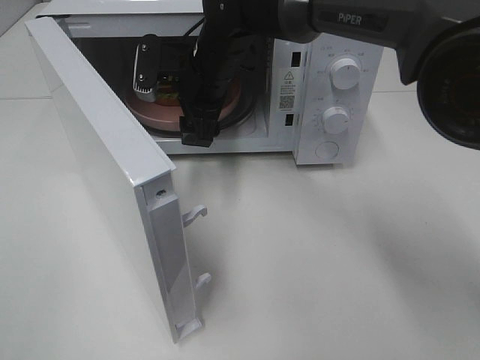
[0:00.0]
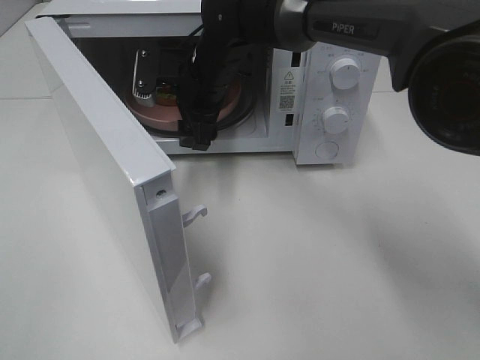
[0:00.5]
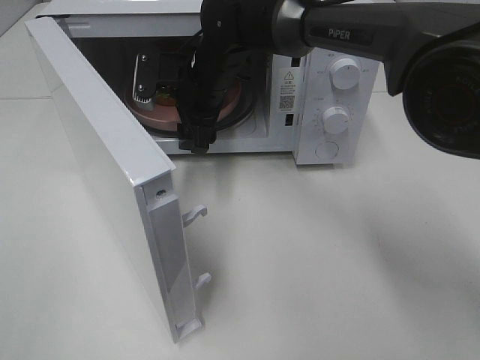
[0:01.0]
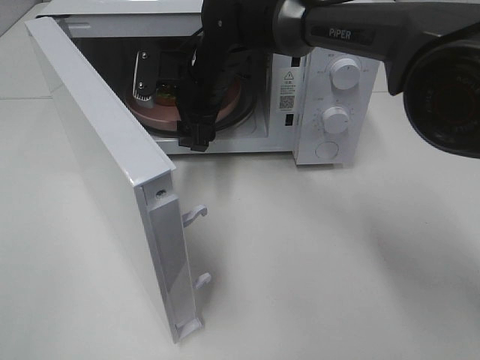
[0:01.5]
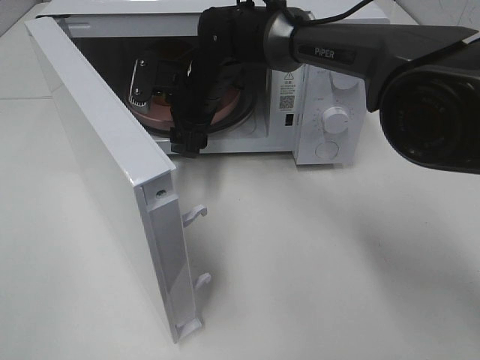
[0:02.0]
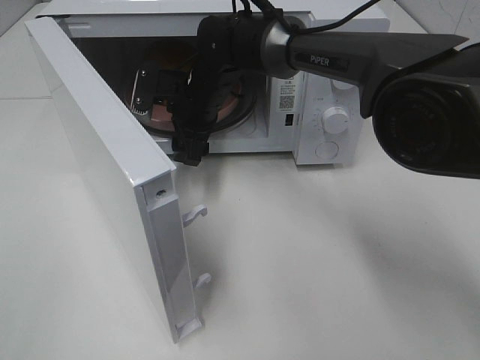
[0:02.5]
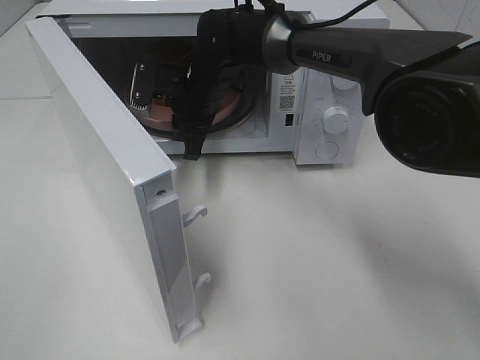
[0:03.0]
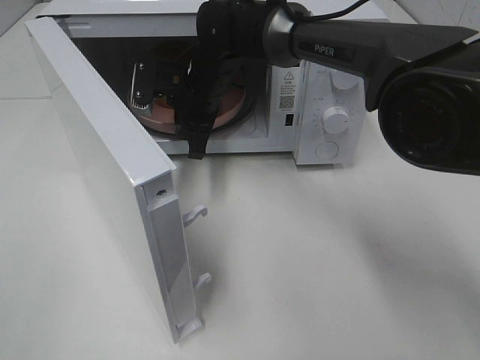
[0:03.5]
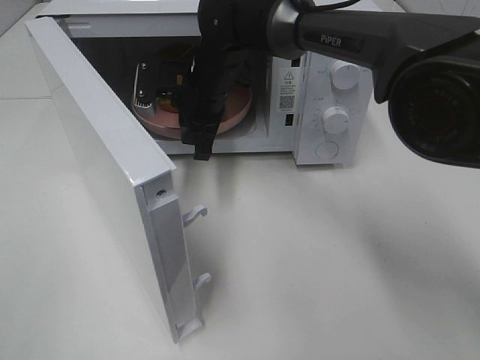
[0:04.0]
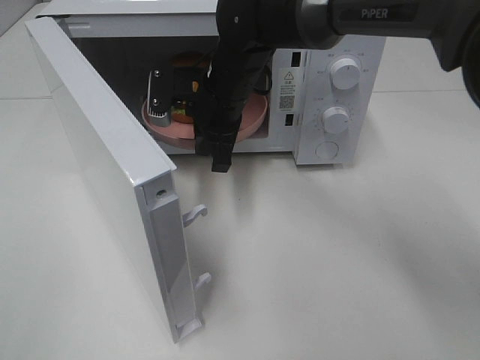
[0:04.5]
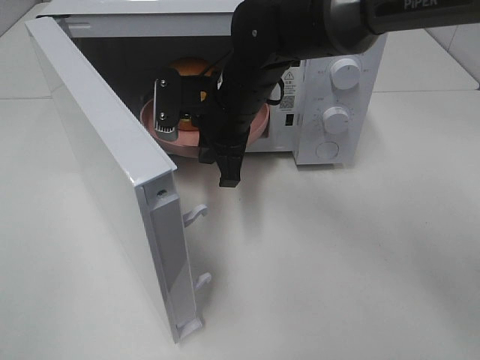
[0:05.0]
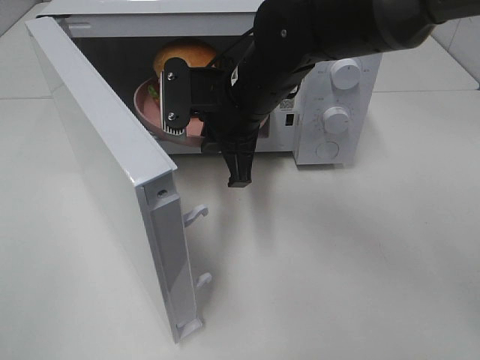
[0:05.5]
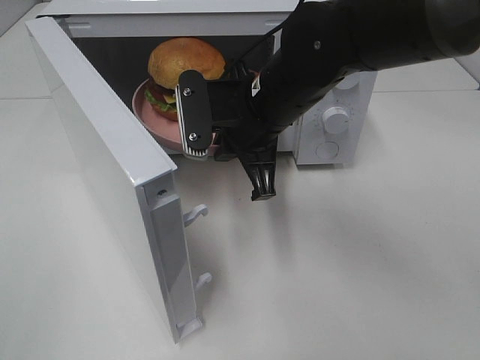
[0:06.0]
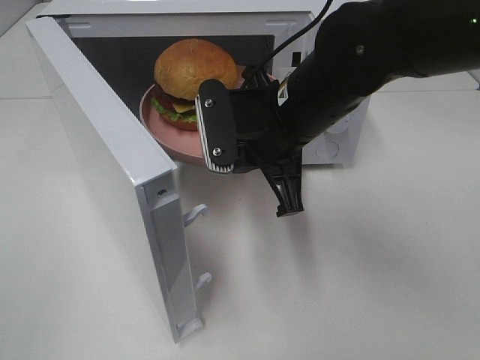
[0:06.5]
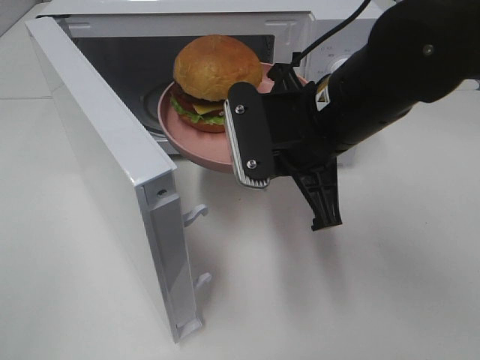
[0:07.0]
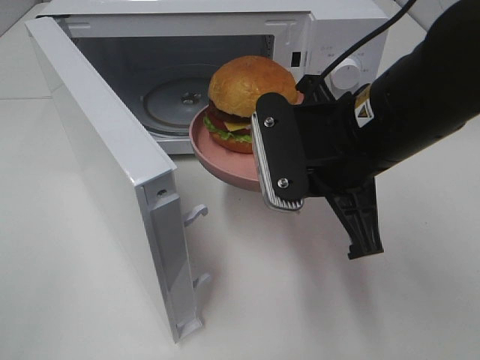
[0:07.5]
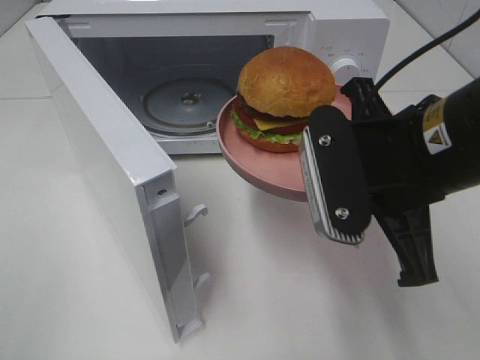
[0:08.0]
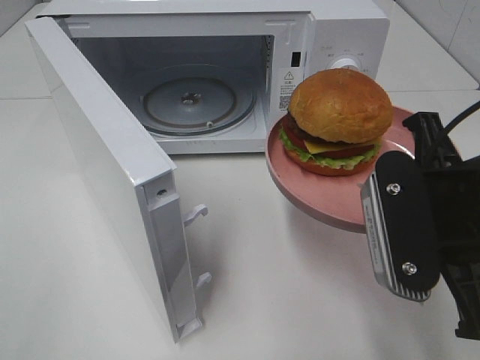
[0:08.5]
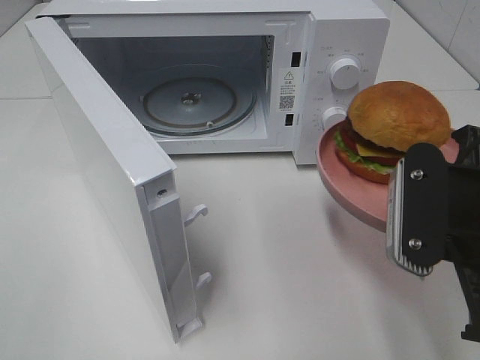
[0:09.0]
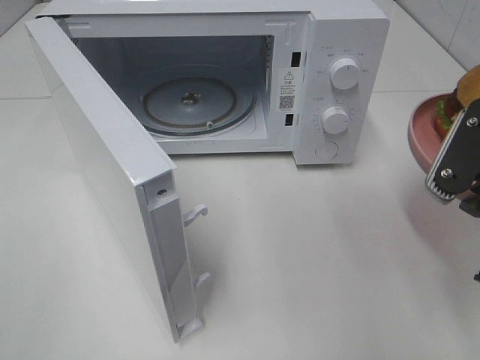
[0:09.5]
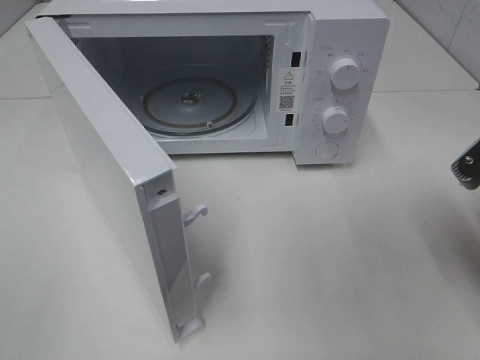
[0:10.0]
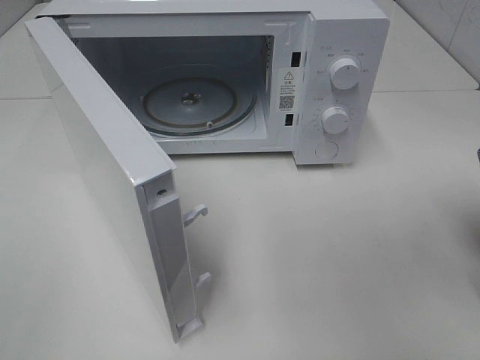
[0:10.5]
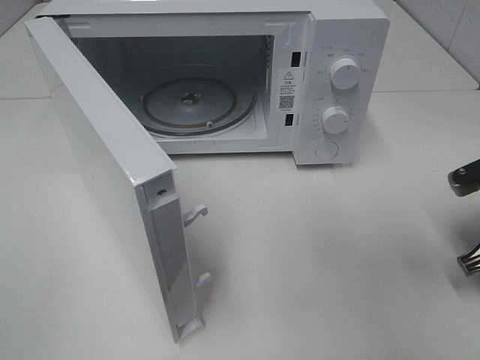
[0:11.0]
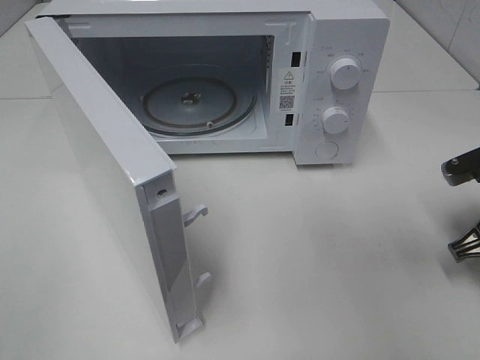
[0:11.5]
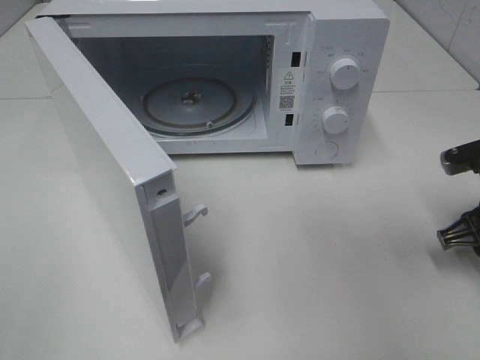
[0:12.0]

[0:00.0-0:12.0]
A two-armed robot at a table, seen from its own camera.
Task of the whole recording: Heat the burger.
Step, 0:00.0 to 0:03.0: Right hand: grab the plate with the hamburger.
Step, 0:03.5 to 0:11.5: Right hand: place the plate on the table.
0:00.0 to 0:02.0: There are only small adjustments of the grippers.
0:02.0 to 0:04.0: The right gripper closes its fingers.
0:04.0 to 0:06.0: The right gripper goes roughly 15 cm backward and to the right.
0:06.0 to 0:08.0: The right gripper travels backward and to the right by some 15 cm.
0:08.0 to 0:10.0: The right gripper travels to the right by some 15 cm.
0:10.0 to 0:12.0: The right gripper goes roughly 10 cm downward and forward, and opens up.

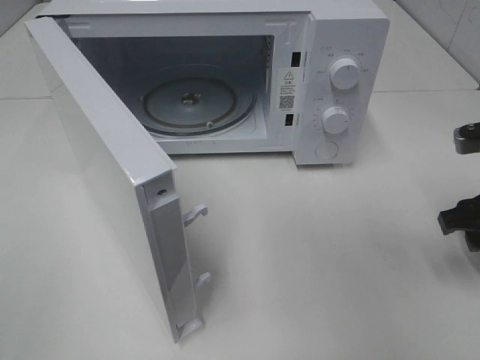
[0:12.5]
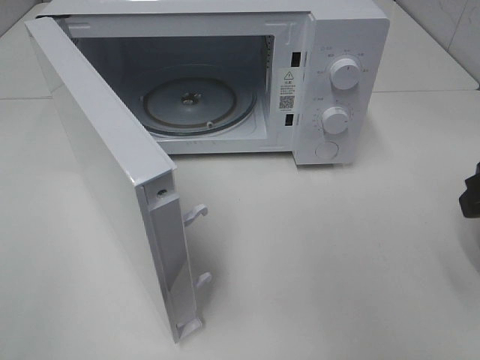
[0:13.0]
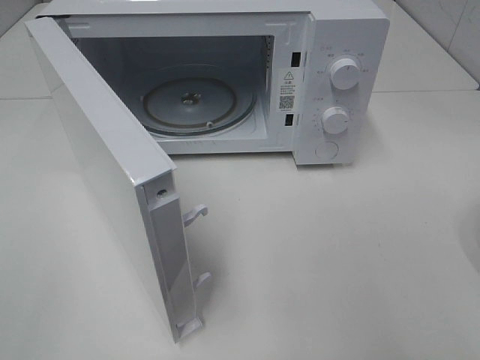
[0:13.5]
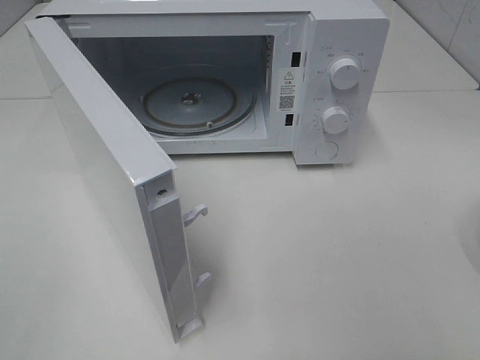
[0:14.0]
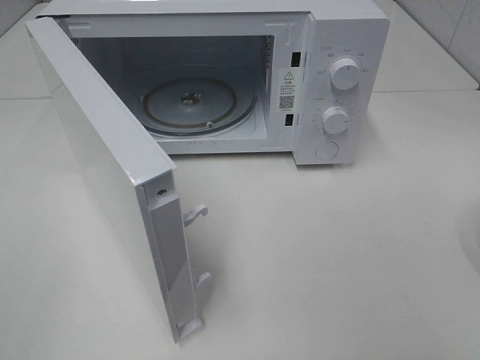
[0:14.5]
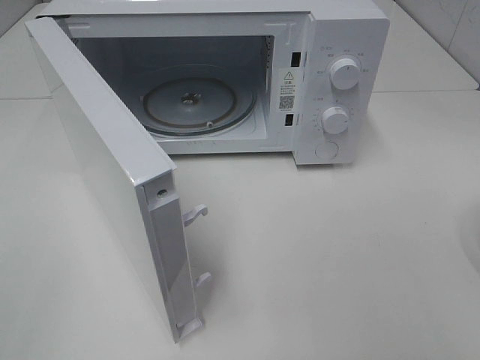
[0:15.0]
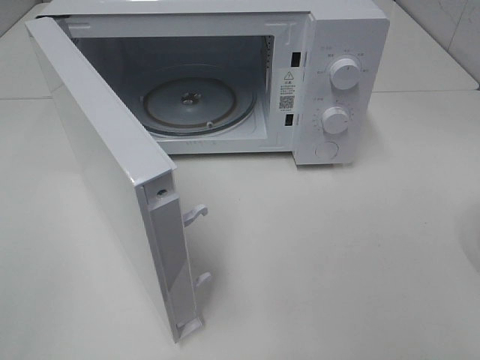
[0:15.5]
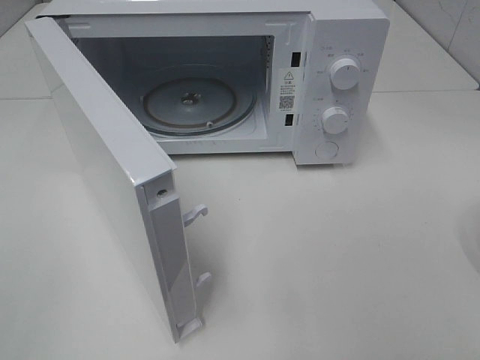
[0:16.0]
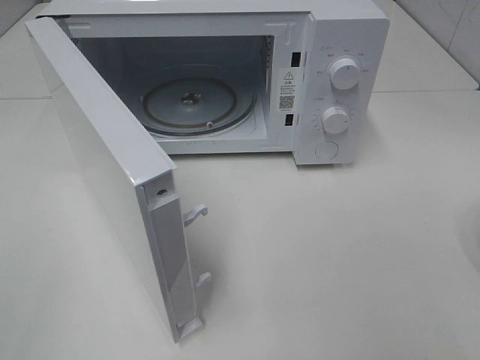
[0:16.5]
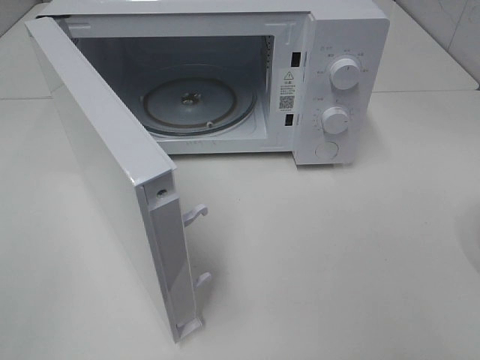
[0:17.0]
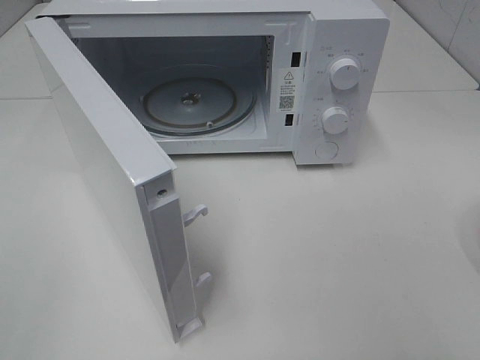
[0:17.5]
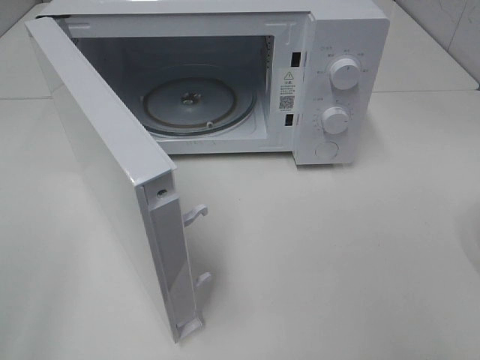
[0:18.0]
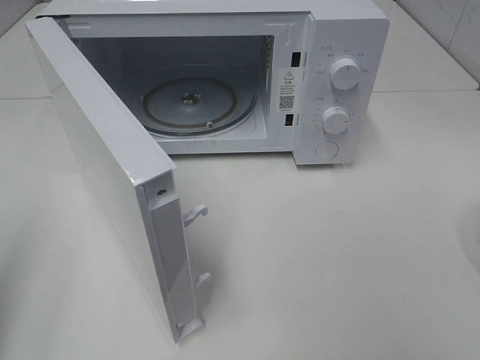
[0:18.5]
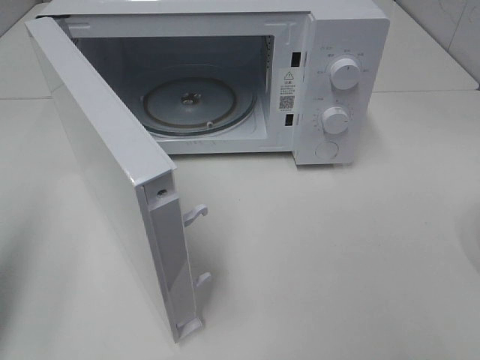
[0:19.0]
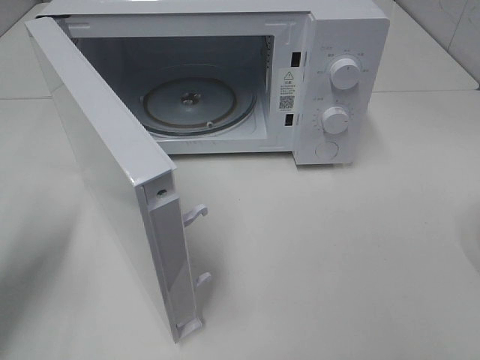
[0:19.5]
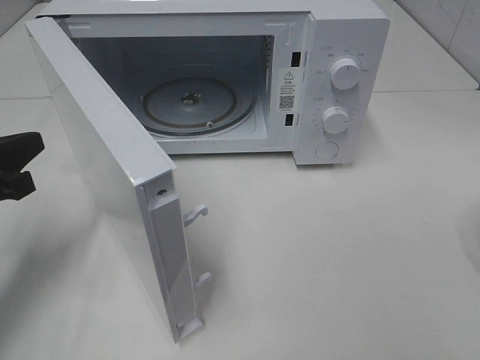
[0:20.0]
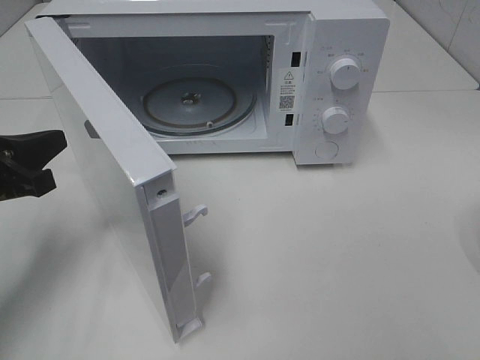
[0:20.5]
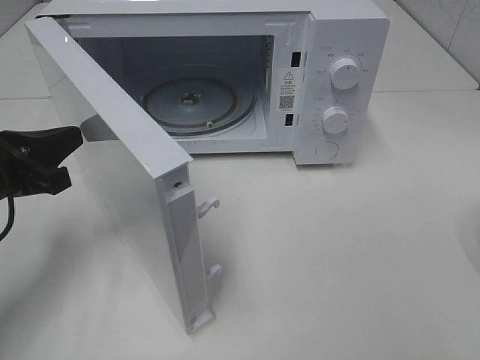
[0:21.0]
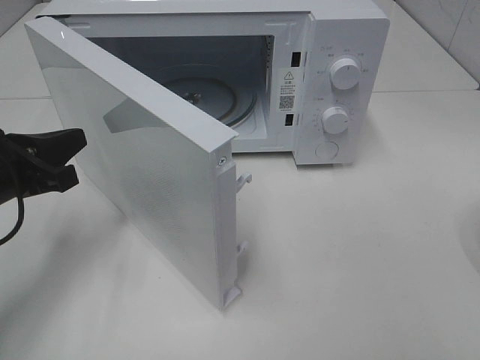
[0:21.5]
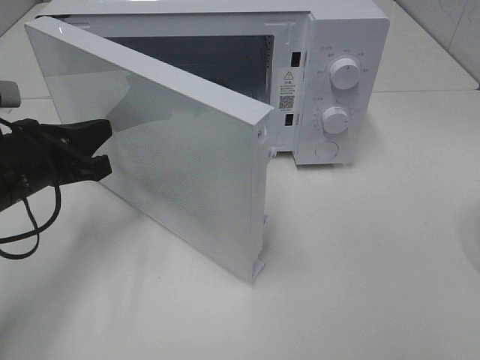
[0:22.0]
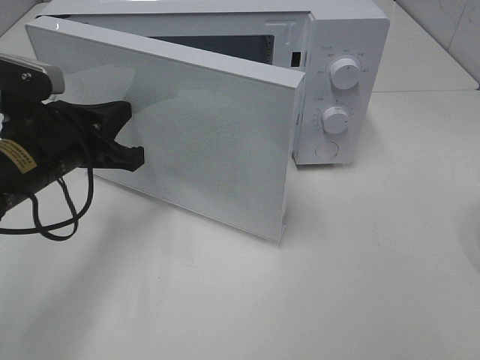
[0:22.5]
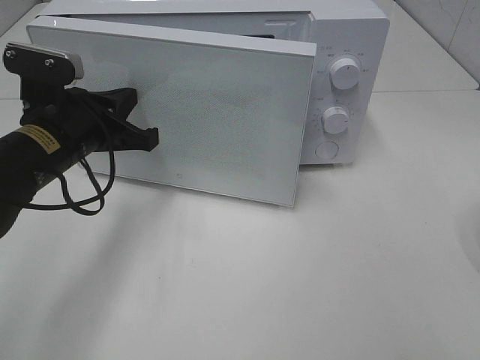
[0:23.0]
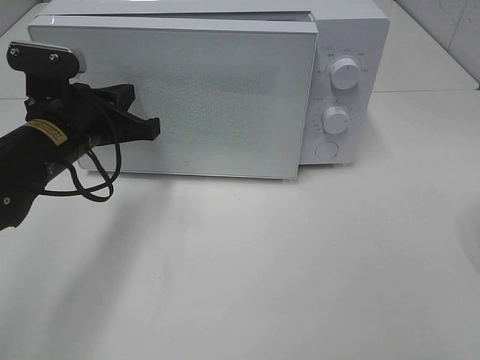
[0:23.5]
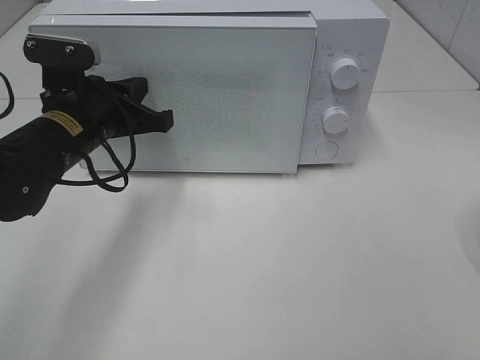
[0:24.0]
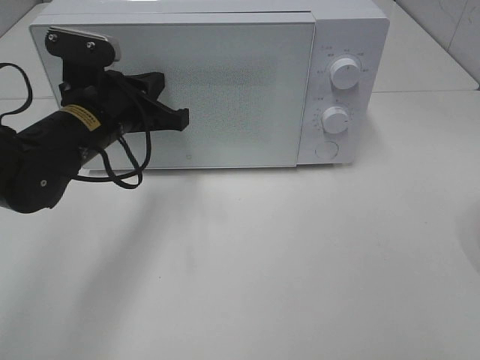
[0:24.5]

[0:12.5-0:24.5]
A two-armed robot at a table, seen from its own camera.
Task of the whole recording: Heat the burger.
0:12.5 to 0:14.5: The right gripper is displaced backward and upward by some 25 cm.
0:18.5 to 0:20.5: The left gripper heads forward, downward and to the right, covering some 20 cm.
0:20.5 to 0:22.5: The left gripper moves to the right, some 10 cm.
0:22.5 to 0:24.5: The left gripper goes about 5 cm forward.

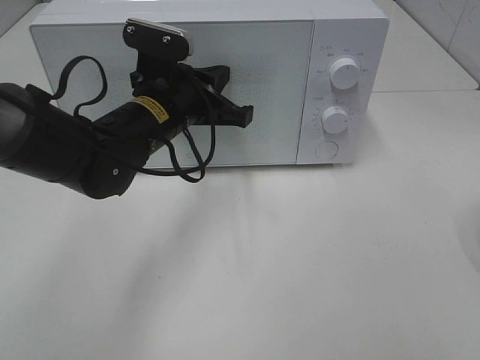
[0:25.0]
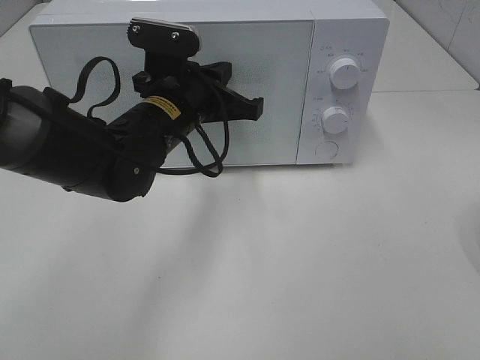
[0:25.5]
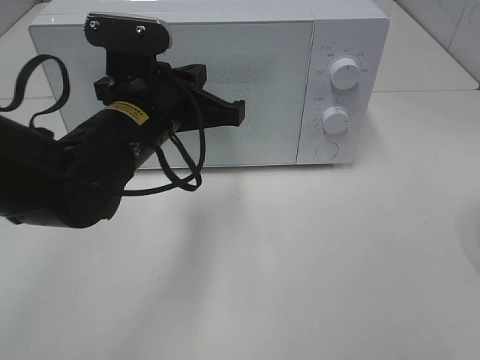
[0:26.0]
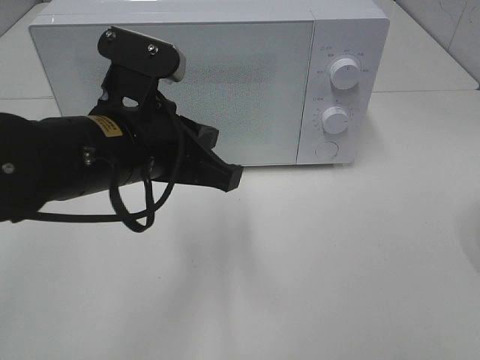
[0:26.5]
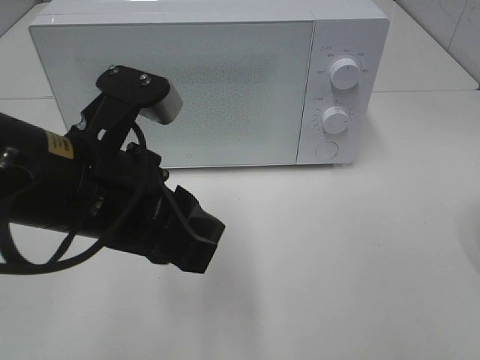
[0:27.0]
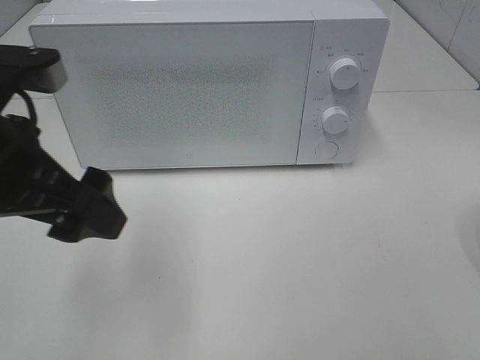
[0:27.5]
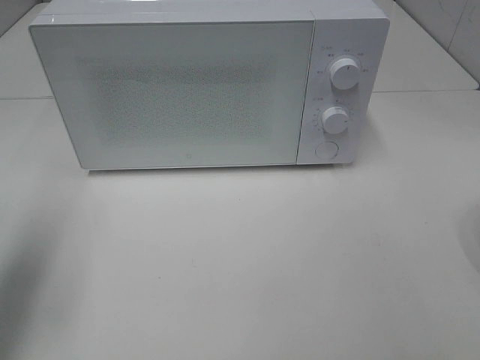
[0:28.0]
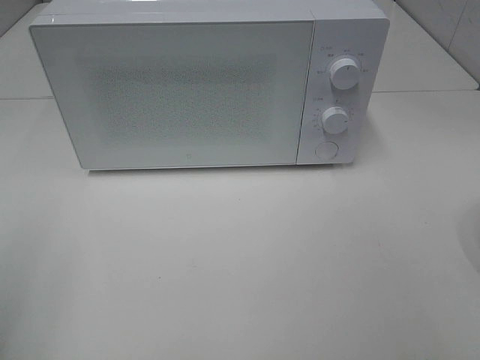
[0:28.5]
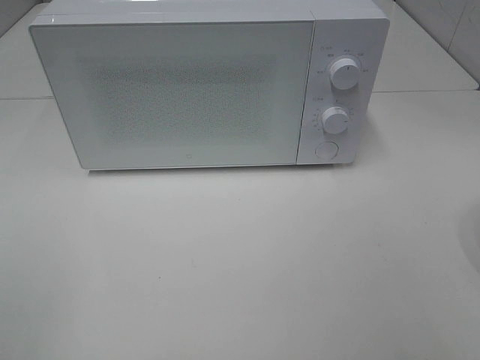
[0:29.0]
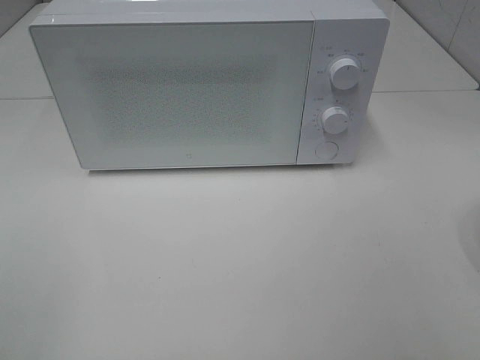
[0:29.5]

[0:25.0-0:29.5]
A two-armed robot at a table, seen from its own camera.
Task of the whole recording: Heat the burger.
0:25.0 to 0:27.0: The left gripper travels backward by approximately 15 cm, and opens up.
0:27.0 to 0:29.5: The left gripper heads to the left and backward, covering some 25 cm, and opens.
